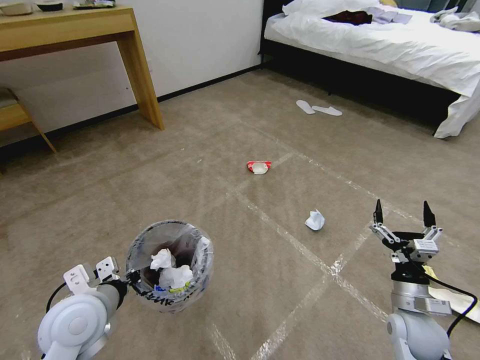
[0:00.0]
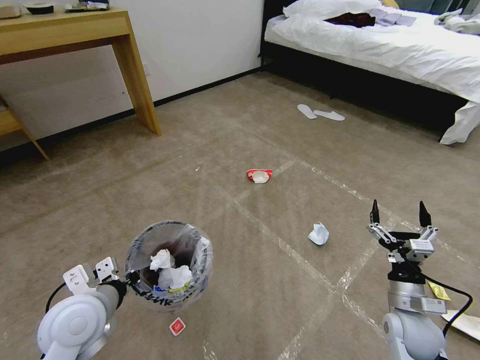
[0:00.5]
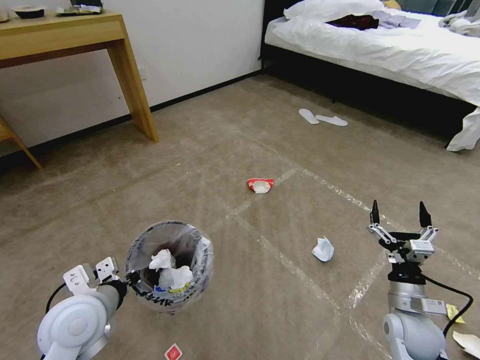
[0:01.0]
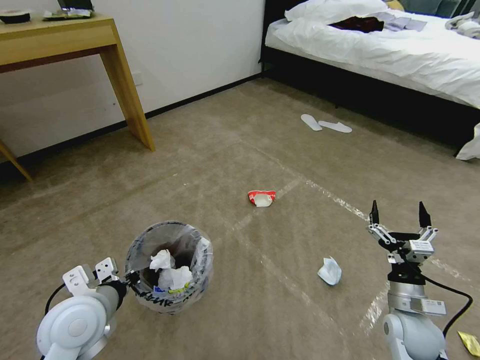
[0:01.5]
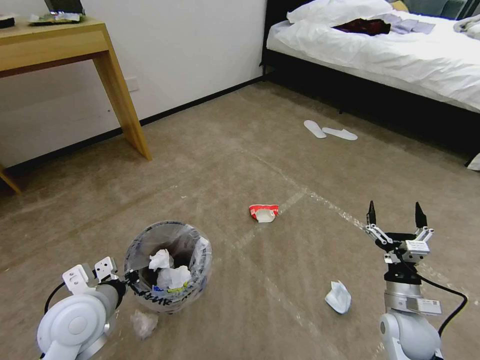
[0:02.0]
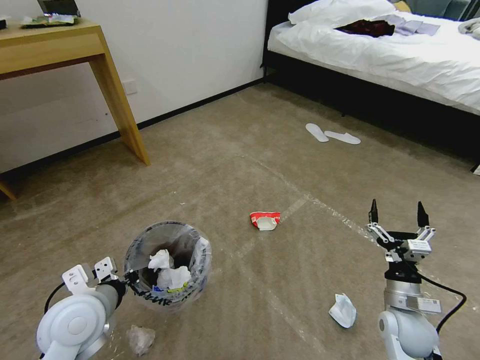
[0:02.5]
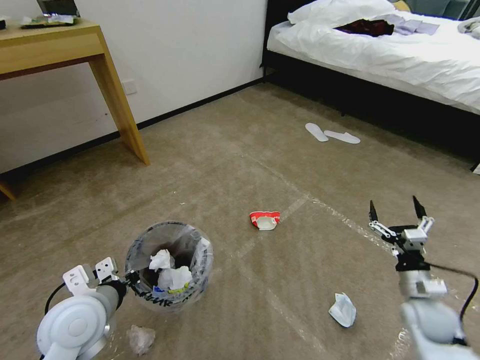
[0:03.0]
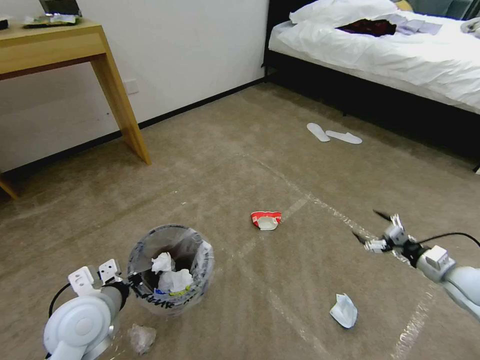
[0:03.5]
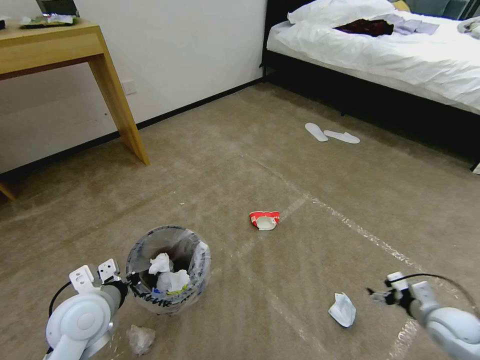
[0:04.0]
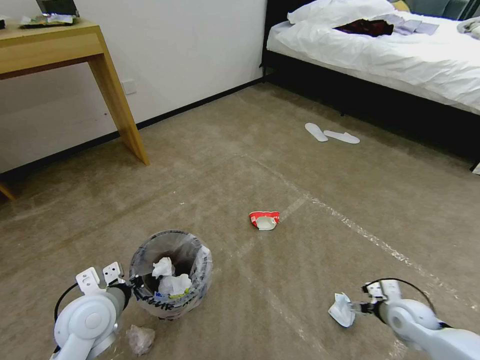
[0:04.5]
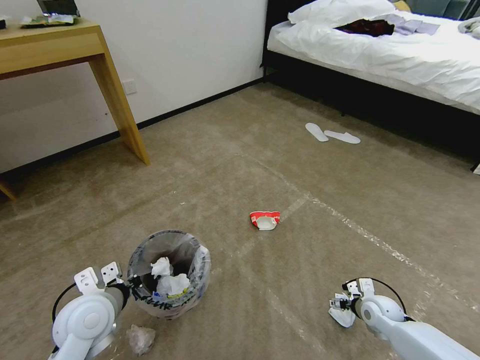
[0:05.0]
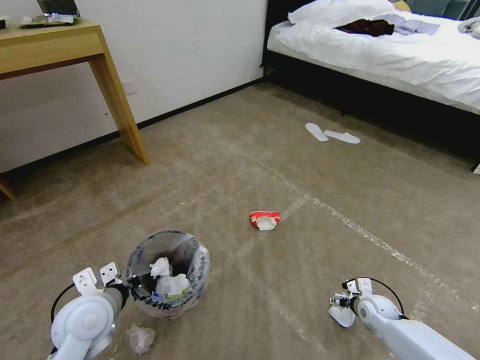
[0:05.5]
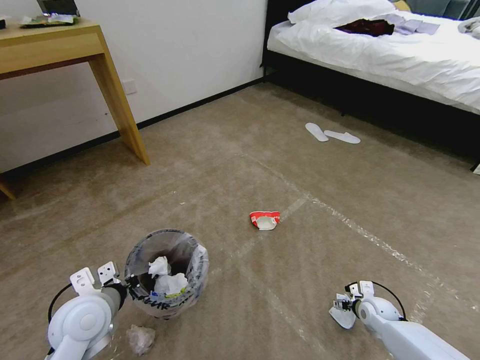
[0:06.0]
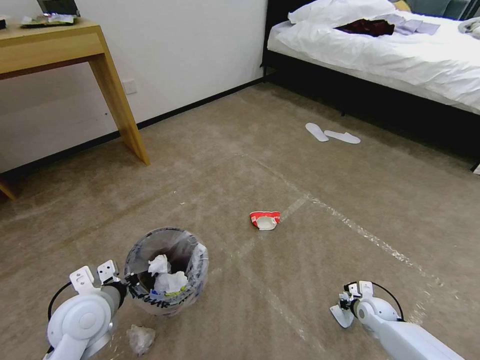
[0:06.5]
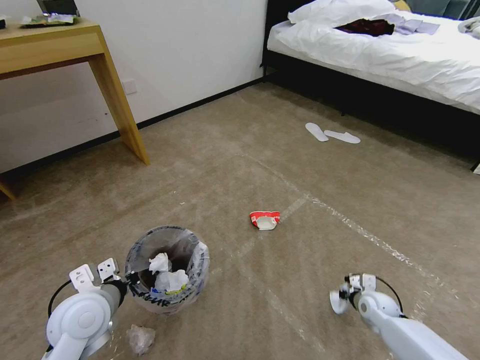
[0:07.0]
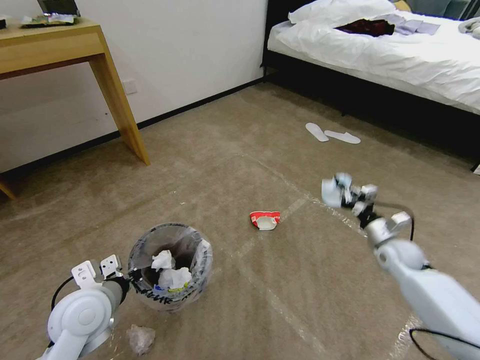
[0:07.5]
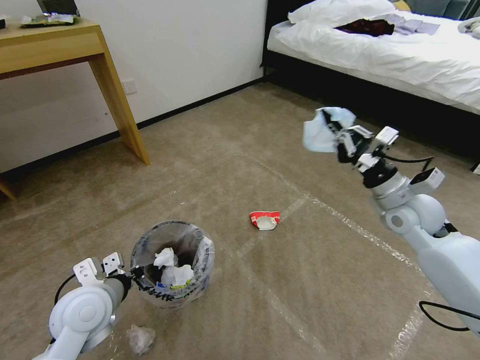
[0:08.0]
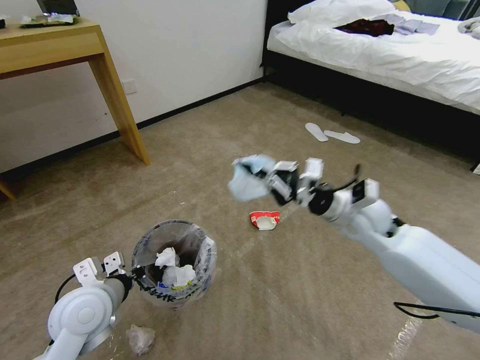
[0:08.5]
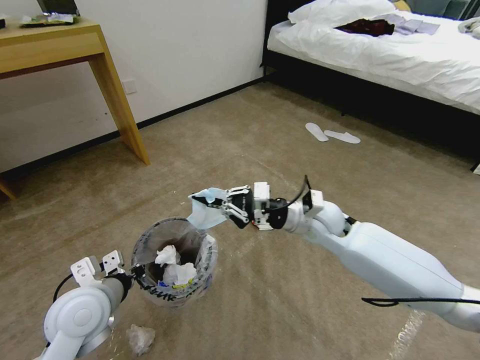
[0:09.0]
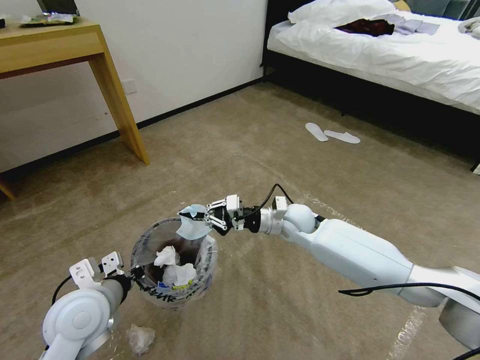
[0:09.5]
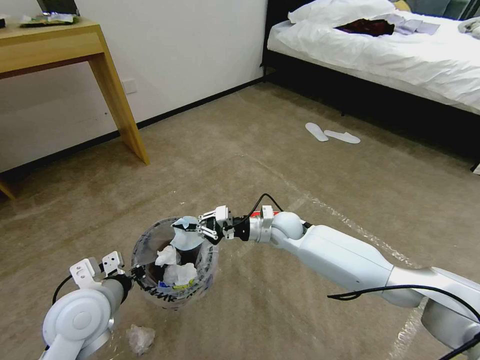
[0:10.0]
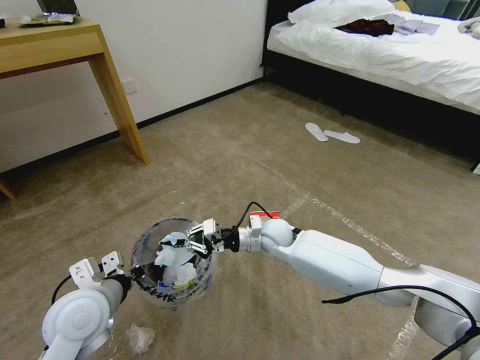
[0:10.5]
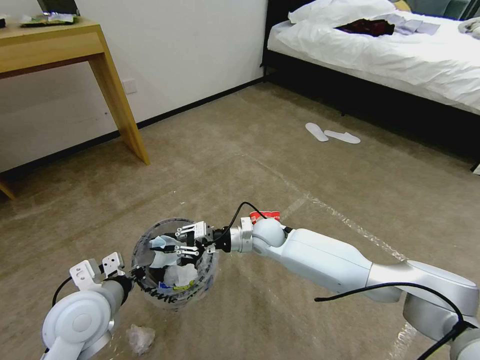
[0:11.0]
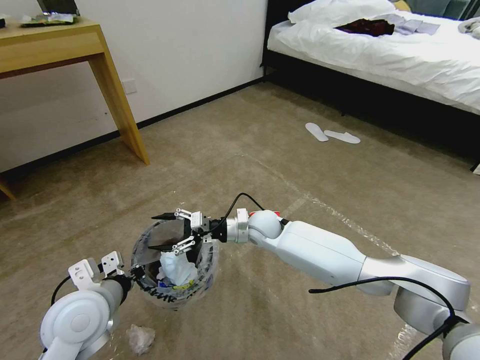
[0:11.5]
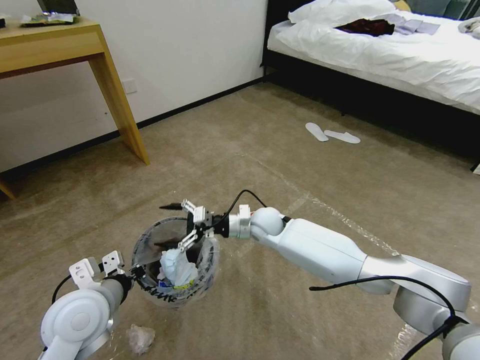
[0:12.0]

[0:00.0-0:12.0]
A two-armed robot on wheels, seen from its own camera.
Task of the whole recording: Pick up the trash bin and place the garbage on the floor into it.
0:02.0 to 0:04.0: The right gripper moves to the right, some 15 cm.
0:04.0 to 0:06.0: The right gripper moves downward, to the left and forward, some 15 cm.
0:06.0 to 0:08.0: The right gripper goes roughly 35 cm upward, and closes.
0:08.0 to 0:10.0: The right gripper shifts about 25 cm to the left and downward.
0:10.0 to 0:12.0: The right gripper is displaced to the left by approximately 5 cm, and opens its fingers.

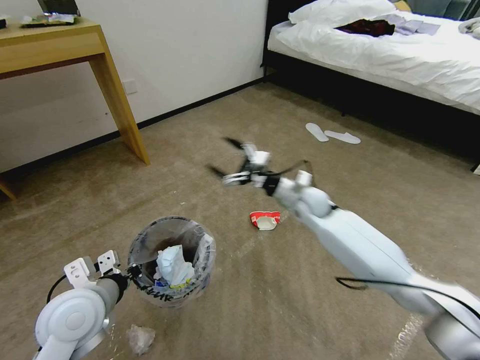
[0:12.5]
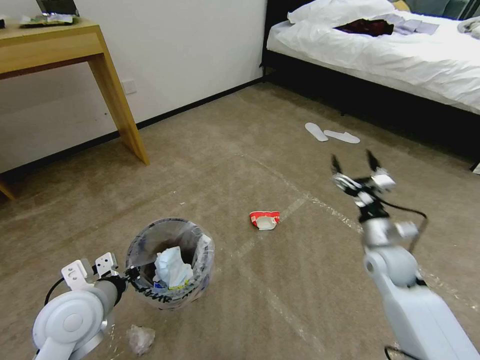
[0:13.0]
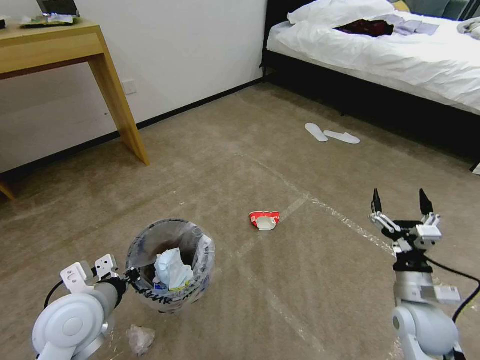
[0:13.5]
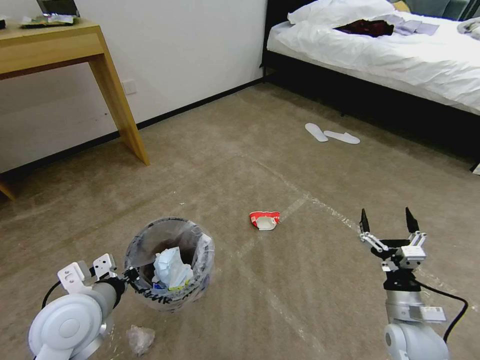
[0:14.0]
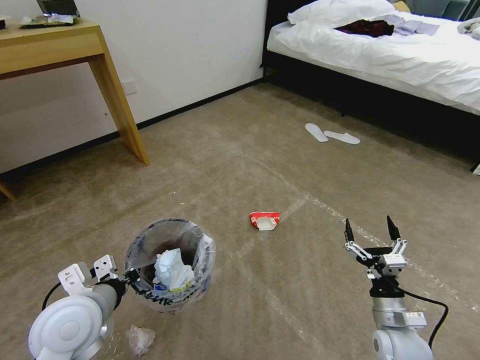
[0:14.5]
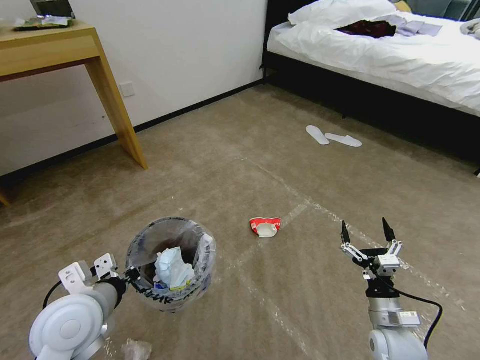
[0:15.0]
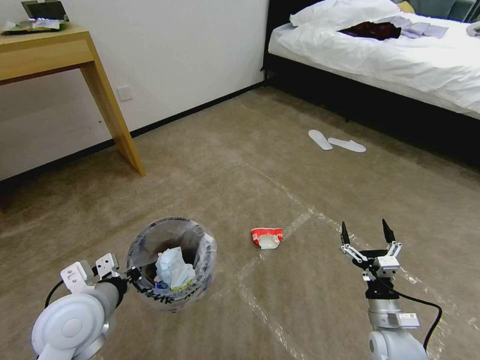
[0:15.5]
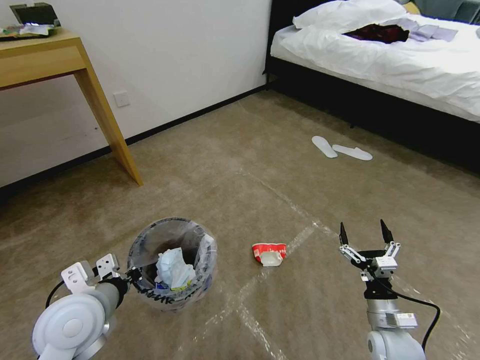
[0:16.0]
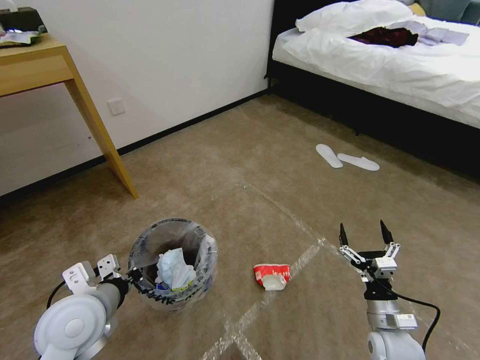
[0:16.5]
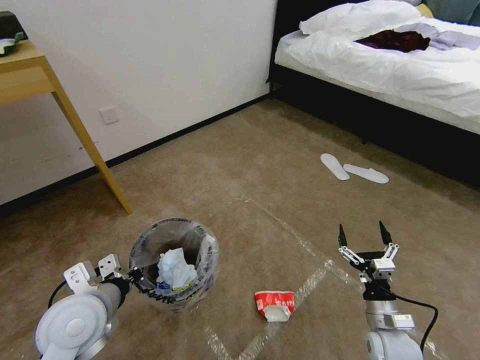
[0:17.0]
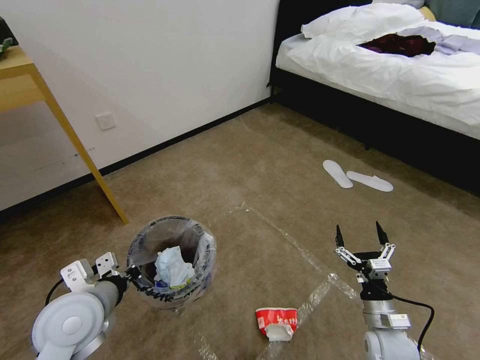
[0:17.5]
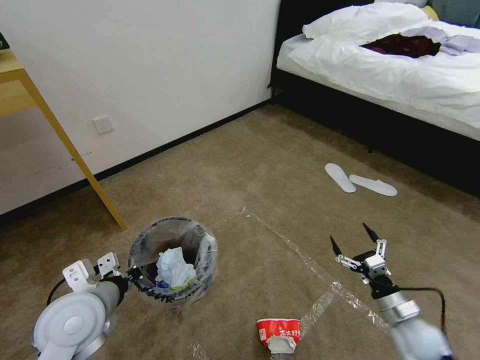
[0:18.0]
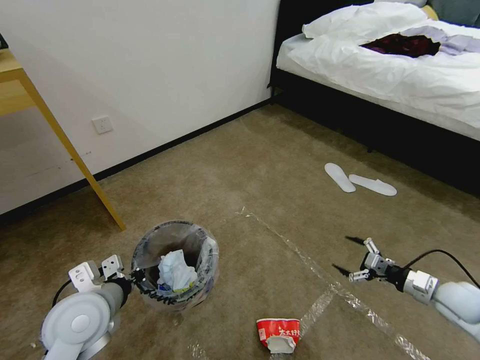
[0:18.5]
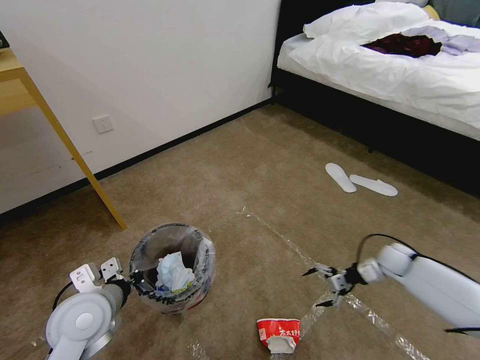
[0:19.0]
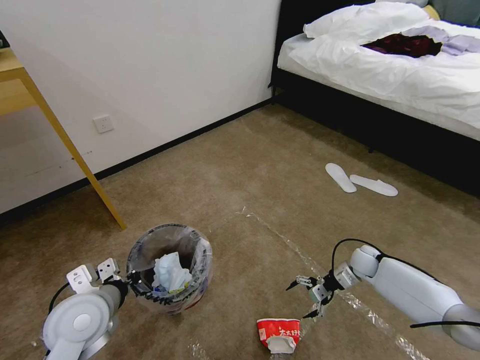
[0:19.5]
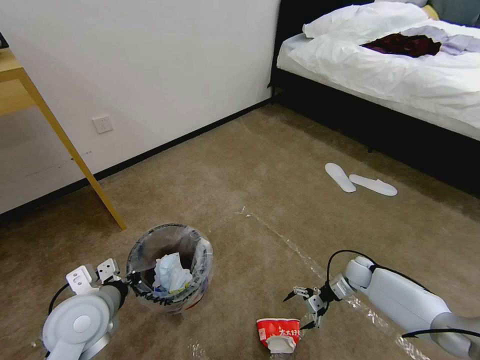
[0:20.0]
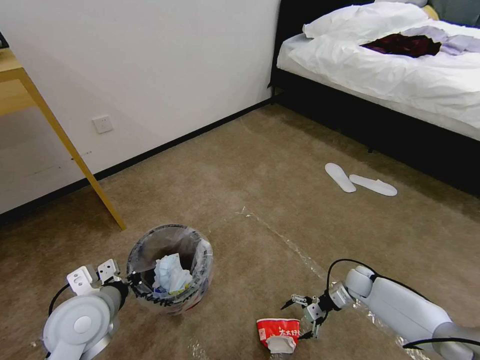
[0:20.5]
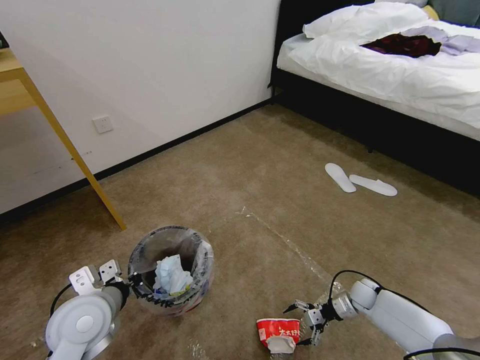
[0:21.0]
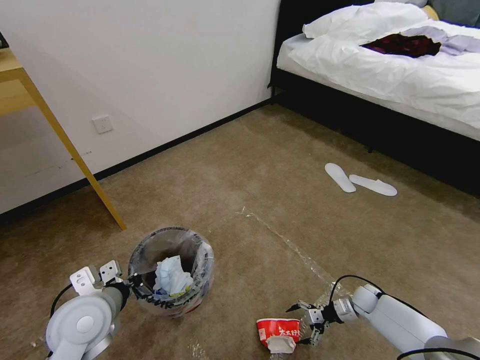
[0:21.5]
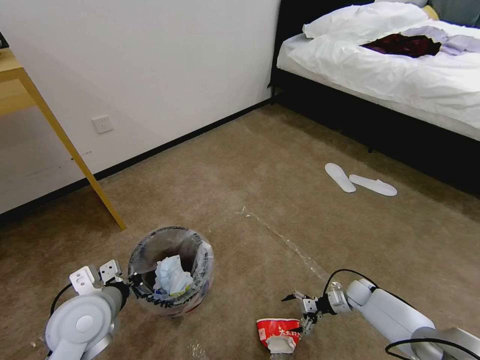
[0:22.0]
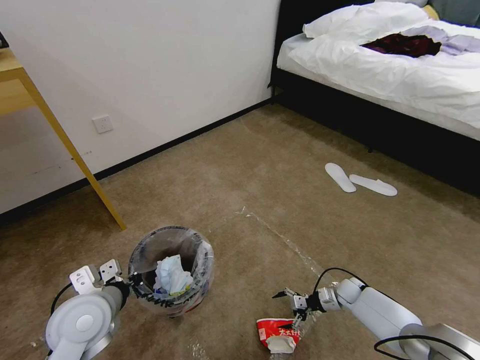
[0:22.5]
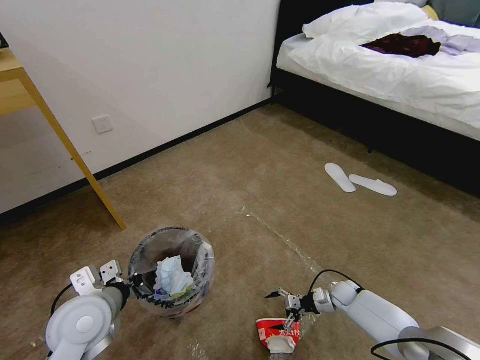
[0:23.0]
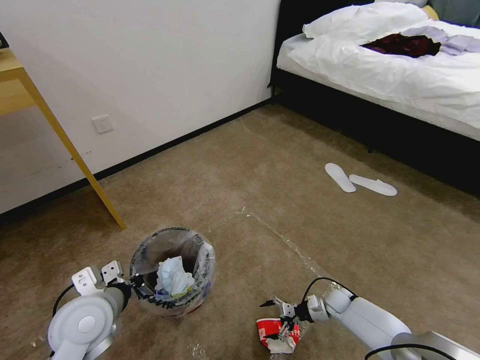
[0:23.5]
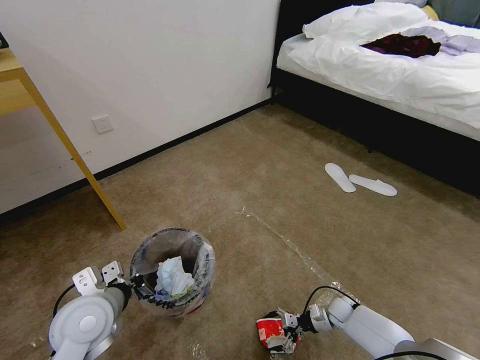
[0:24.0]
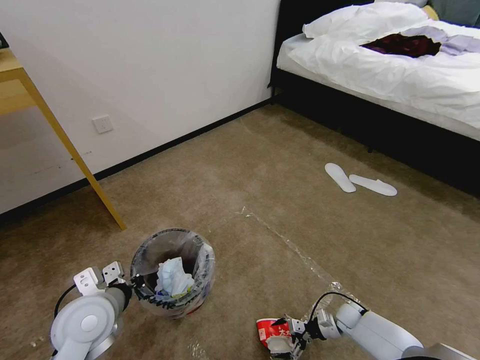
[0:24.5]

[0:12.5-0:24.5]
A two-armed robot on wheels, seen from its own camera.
Task of the whole recording: Pick up the trash bin and place the garbage on the floor into it.
0:12.5 to 0:14.5: The right gripper shifts about 35 cm backward, to the right and downward.
0:16.5 to 0:18.5: The right gripper travels to the right and forward by some 20 cm.
0:18.5 to 0:20.5: The right gripper moves downward, to the left and forward, about 20 cm.
0:20.5 to 0:22.5: The right gripper goes roughly 5 cm downward.
0:22.5 to 0:24.5: The right gripper moves backward, approximately 5 cm.

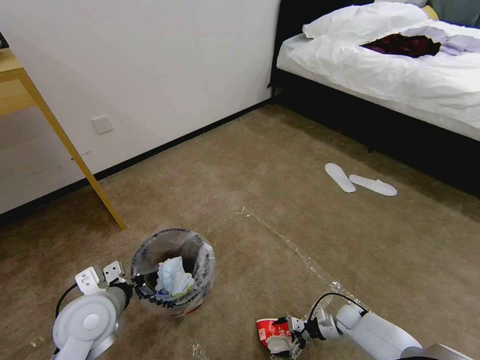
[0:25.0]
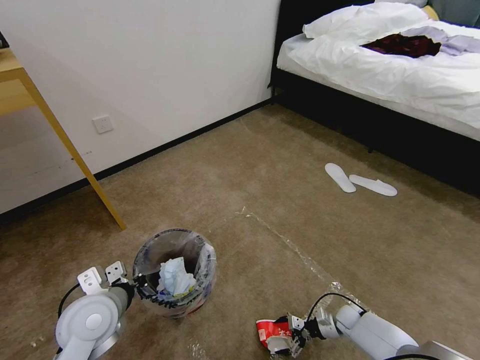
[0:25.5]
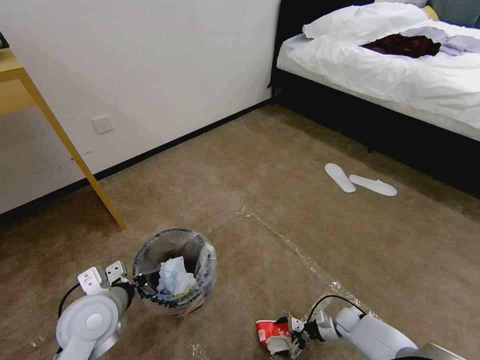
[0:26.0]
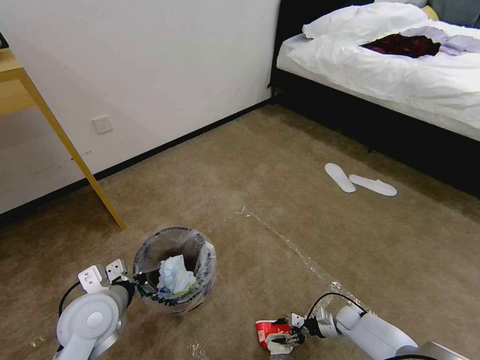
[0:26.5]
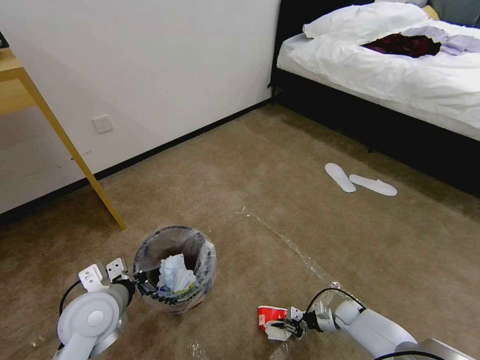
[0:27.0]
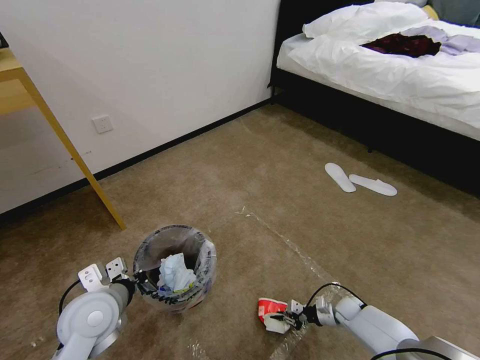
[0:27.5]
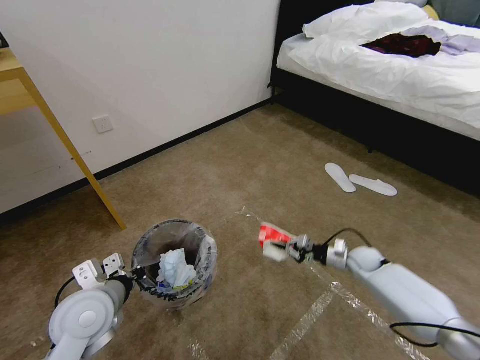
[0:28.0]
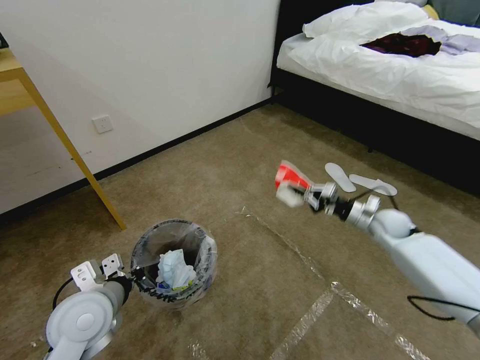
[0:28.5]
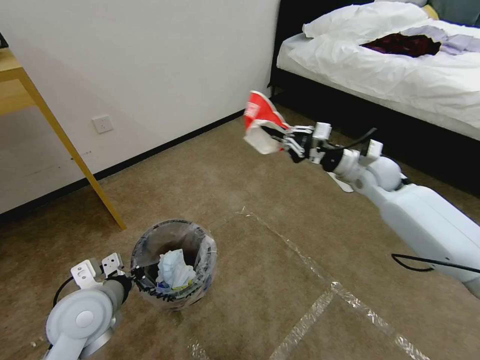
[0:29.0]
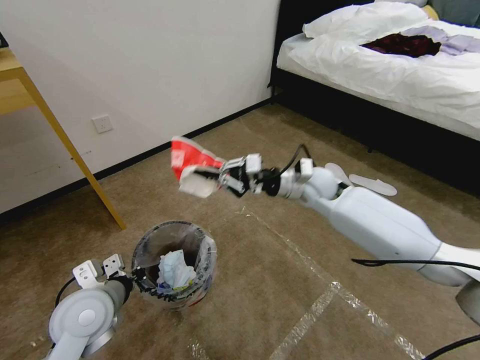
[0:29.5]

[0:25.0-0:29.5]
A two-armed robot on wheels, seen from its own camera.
Task of the whole recording: Pick up the trash bin and place the garbage on the floor into it.
0:25.0 to 0:27.0: The right gripper closes.
0:27.0 to 0:29.5: The right gripper heads upward and to the left, covering roughly 50 cm.
